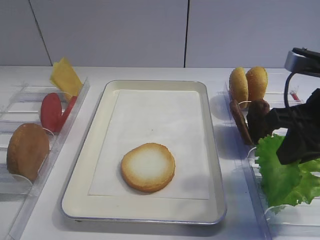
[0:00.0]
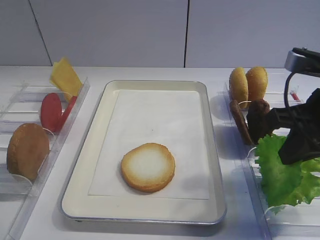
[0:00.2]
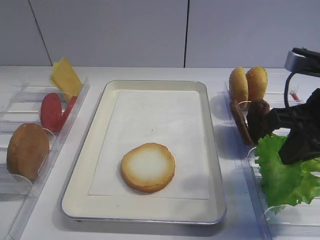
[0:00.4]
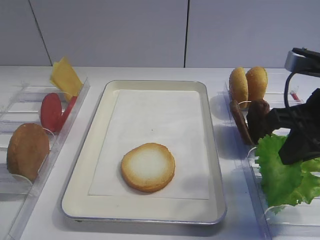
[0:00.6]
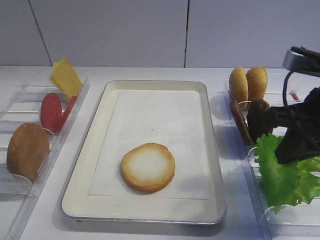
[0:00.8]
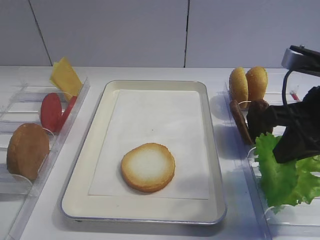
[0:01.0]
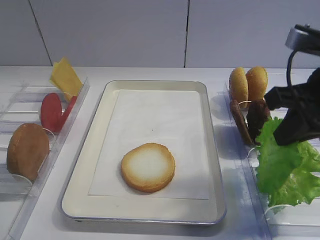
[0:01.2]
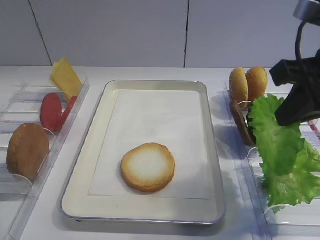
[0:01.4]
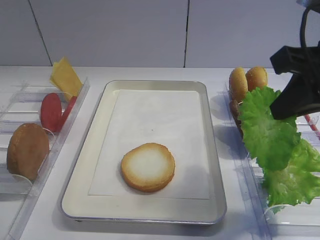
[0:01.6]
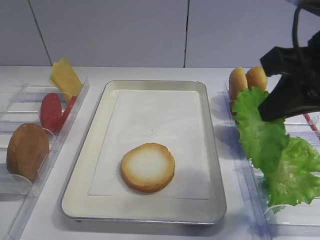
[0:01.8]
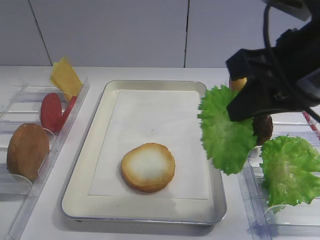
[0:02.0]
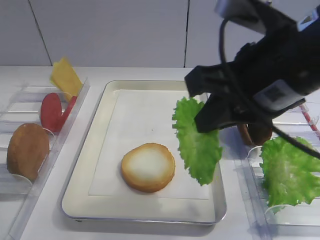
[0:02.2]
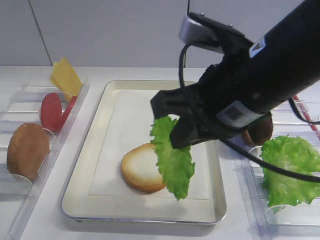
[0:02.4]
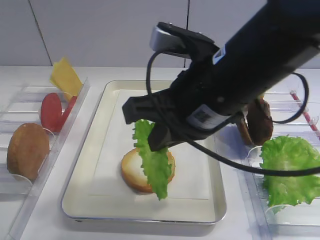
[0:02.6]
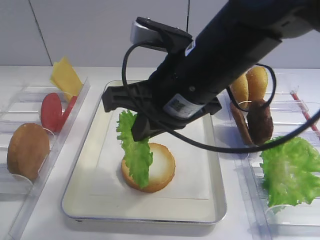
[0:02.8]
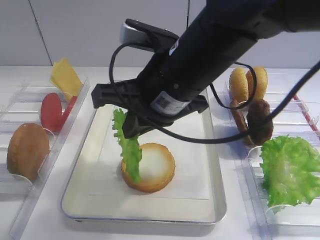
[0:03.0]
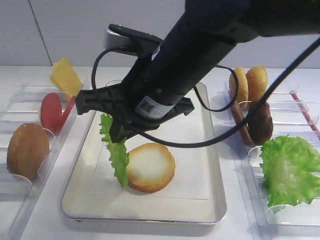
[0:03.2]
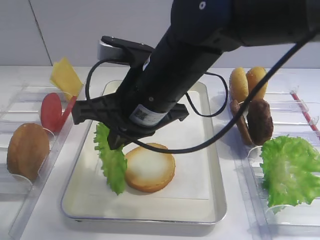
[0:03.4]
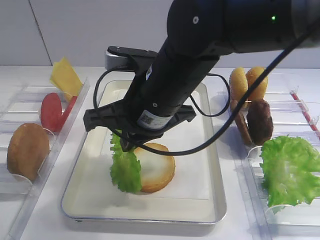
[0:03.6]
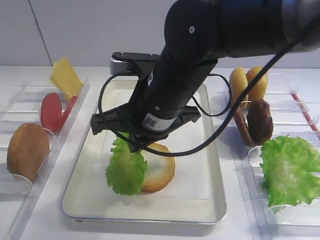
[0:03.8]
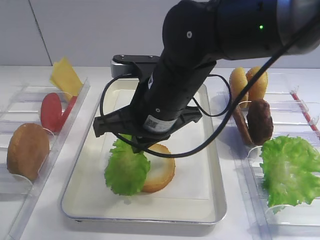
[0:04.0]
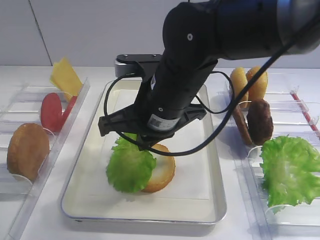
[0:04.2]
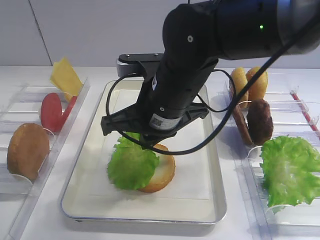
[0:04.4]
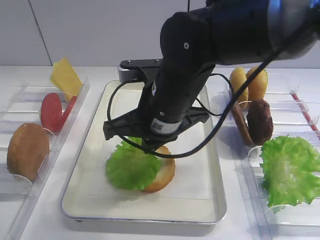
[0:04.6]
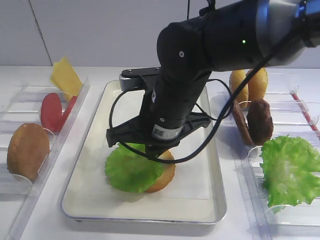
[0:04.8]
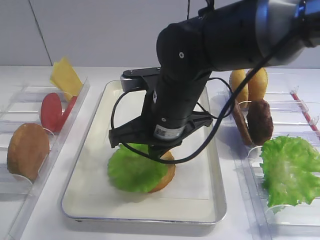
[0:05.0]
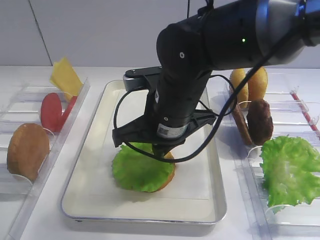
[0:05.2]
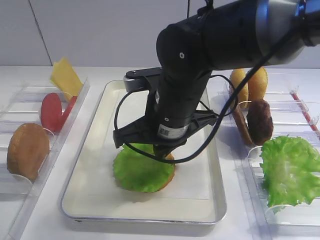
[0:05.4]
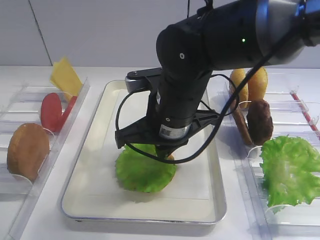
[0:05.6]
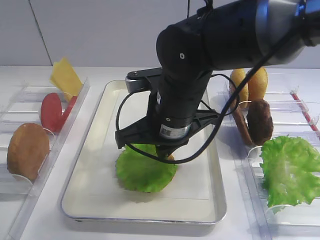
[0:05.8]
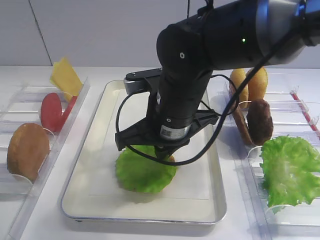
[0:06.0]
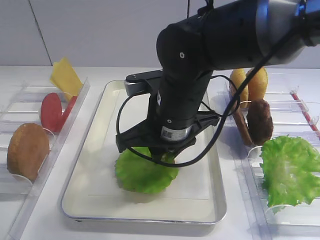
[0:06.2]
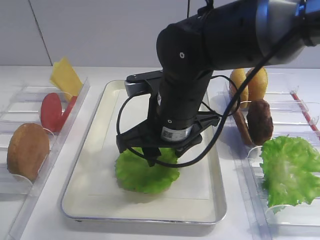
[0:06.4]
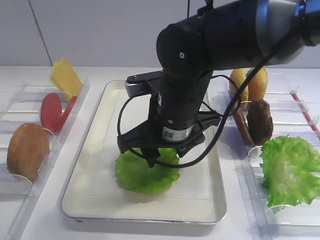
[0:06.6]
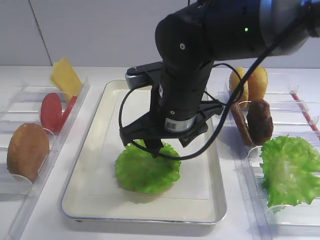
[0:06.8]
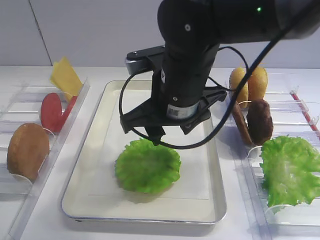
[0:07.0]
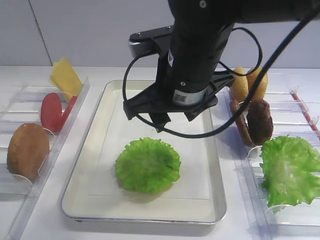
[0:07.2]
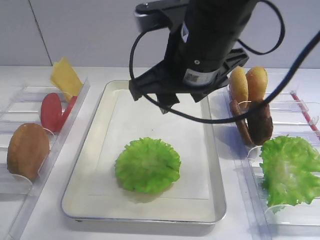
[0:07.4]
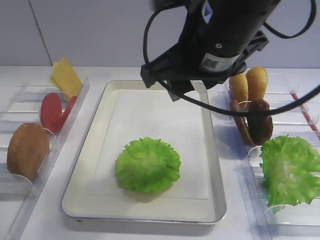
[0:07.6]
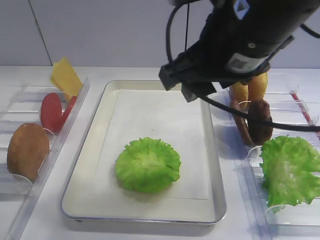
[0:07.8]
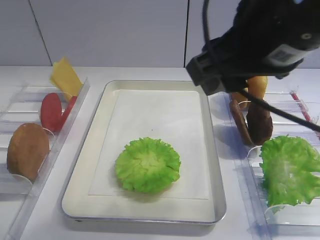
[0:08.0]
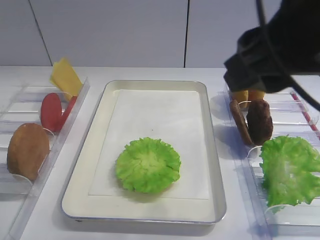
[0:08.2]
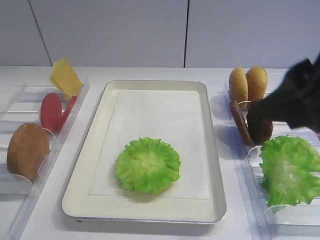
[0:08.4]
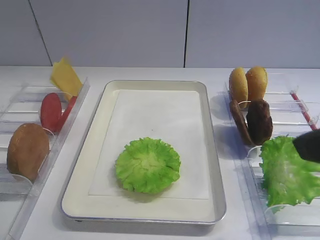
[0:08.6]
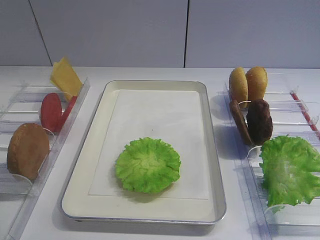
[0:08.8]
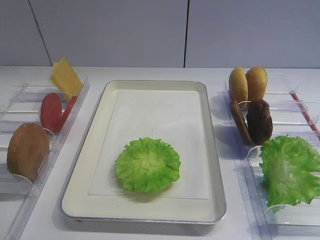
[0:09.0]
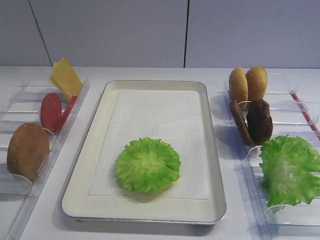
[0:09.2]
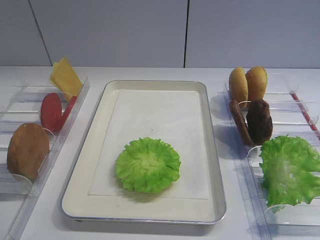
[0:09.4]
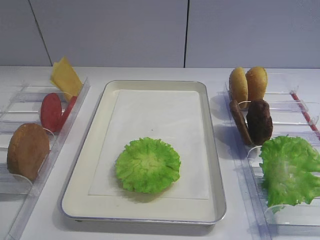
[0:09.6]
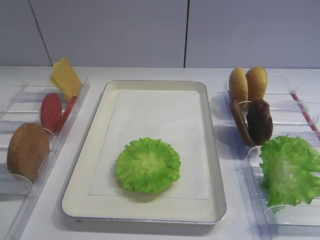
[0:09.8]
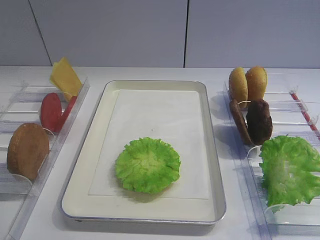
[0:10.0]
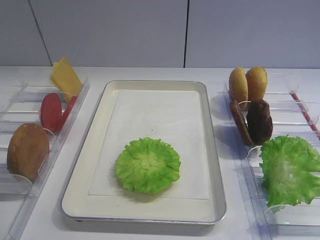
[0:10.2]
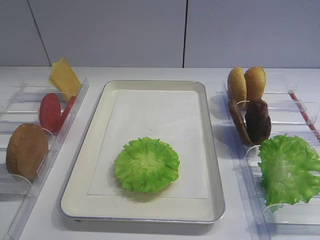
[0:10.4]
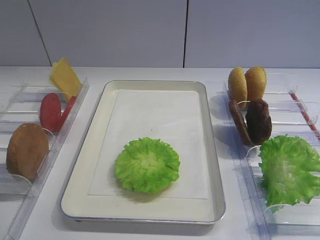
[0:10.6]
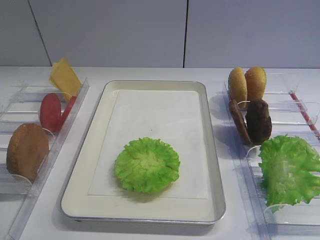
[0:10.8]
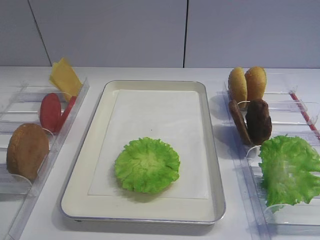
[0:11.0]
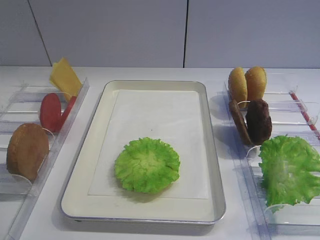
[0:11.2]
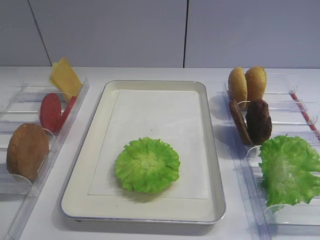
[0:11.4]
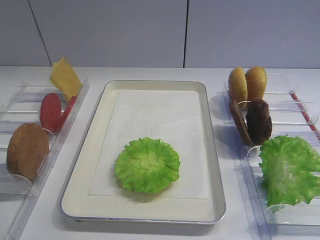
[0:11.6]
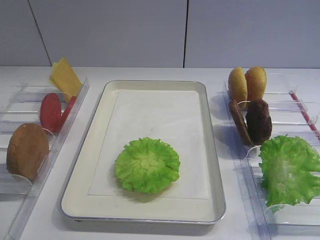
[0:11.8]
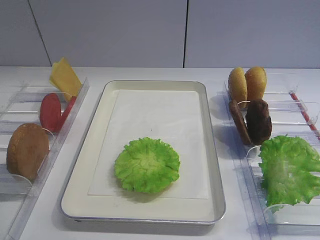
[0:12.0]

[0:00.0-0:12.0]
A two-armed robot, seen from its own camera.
Step, 1.6 to 7.0 s: Place the lettuce leaf on the bread slice with the right gripper.
0.0 to 1.6 s: The right gripper moves upward, approximately 5 cm.
1.6 to 3.0 s: The right gripper heads to the left, covering some 20 cm.
3.0 to 4.4 s: The right gripper changes place by about 5 cm.
4.4 to 6.0 s: The grippers move only a little.
6.0 to 7.6 s: The right gripper moves upward, approximately 10 cm, and opens its fingers.
7.6 to 9.0 s: The right gripper moves backward and to the right, some 25 cm.
9.0 to 10.4 s: The right gripper goes some 5 cm backward.

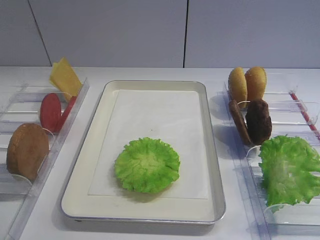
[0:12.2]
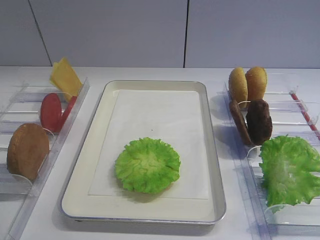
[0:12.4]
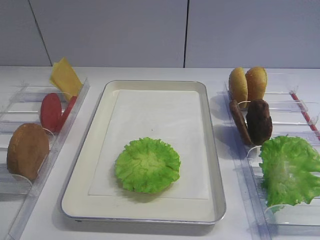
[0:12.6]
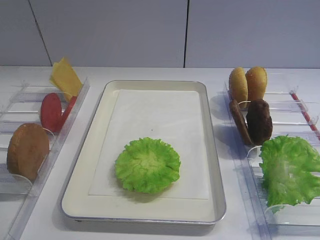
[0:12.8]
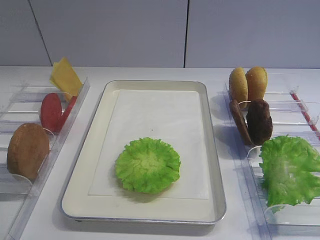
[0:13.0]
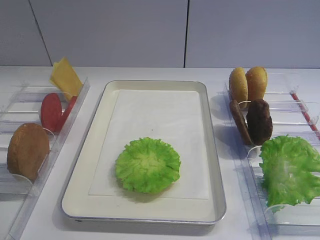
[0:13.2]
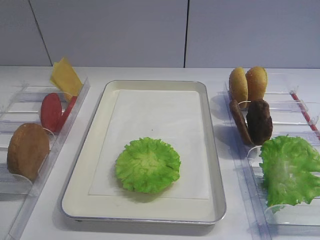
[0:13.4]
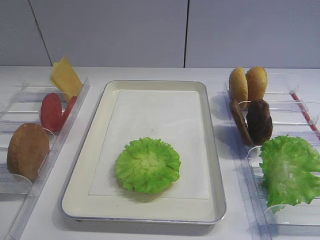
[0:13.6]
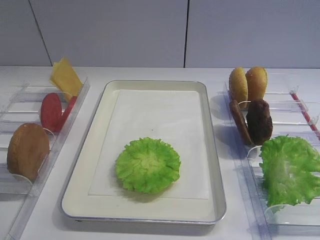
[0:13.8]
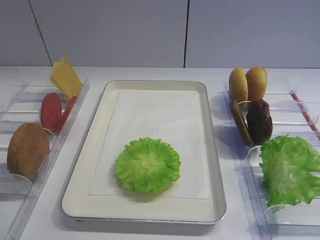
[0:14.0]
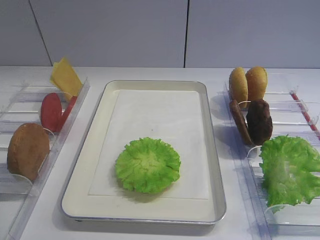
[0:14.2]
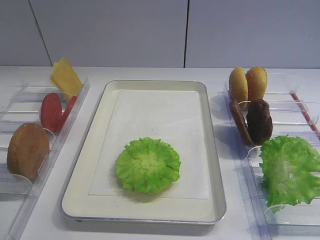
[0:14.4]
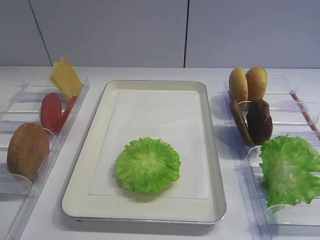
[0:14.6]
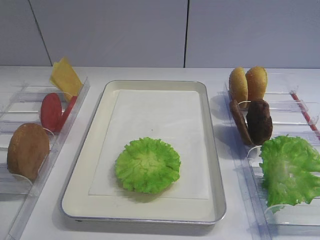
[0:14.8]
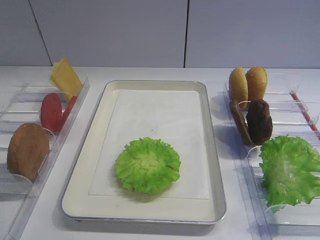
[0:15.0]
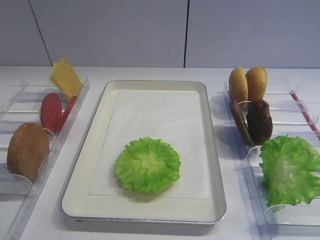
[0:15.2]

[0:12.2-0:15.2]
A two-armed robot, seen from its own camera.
13.8 to 15.2 s: The two grippers keep their place.

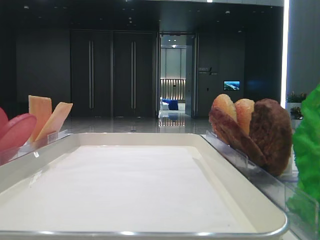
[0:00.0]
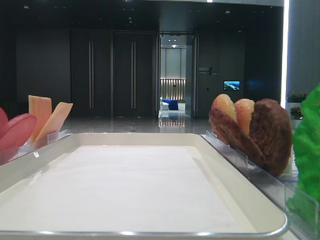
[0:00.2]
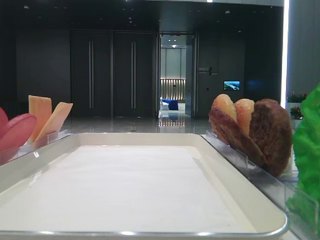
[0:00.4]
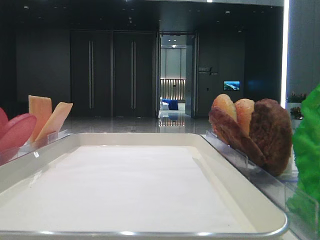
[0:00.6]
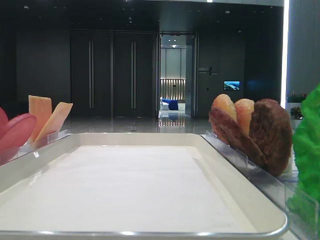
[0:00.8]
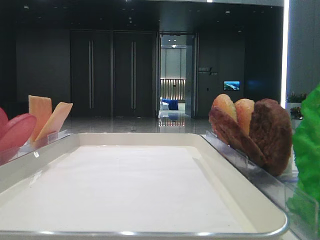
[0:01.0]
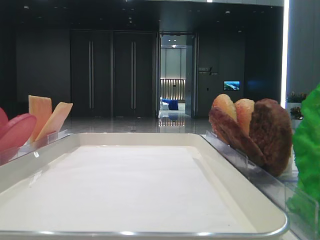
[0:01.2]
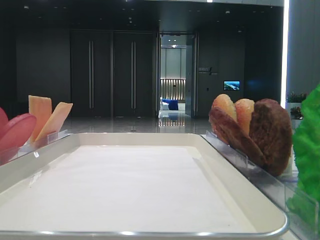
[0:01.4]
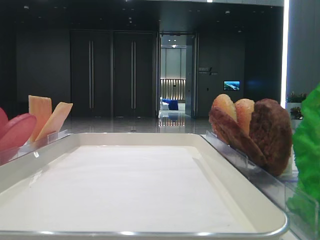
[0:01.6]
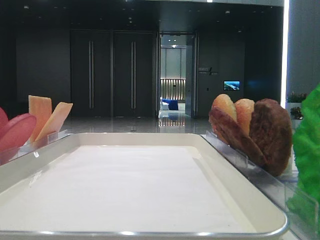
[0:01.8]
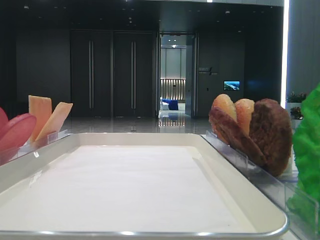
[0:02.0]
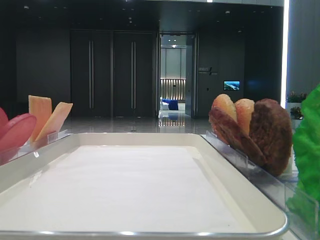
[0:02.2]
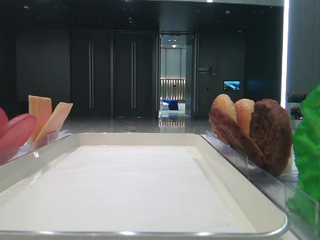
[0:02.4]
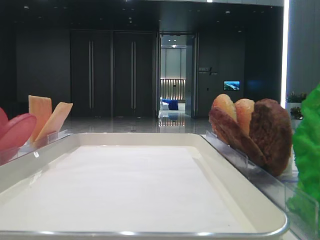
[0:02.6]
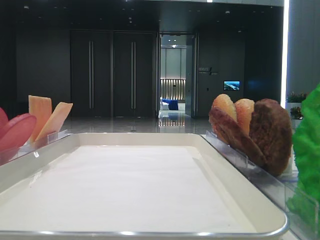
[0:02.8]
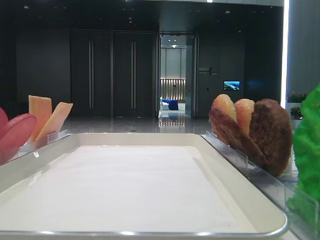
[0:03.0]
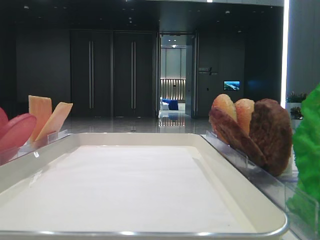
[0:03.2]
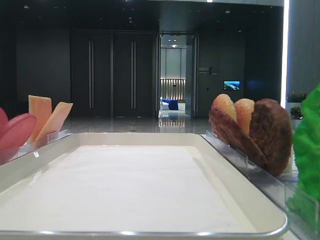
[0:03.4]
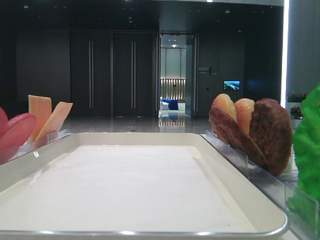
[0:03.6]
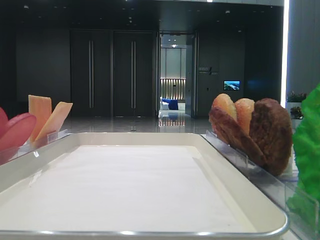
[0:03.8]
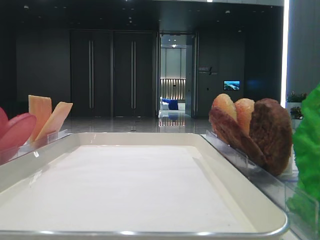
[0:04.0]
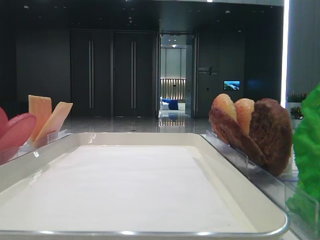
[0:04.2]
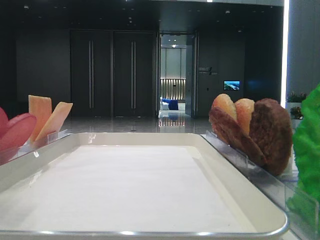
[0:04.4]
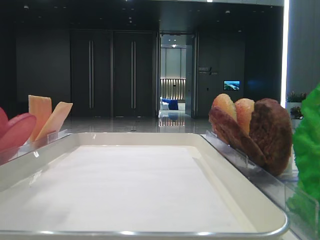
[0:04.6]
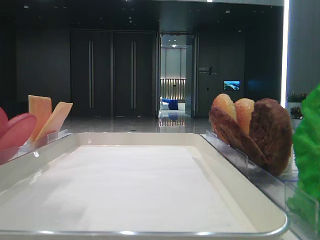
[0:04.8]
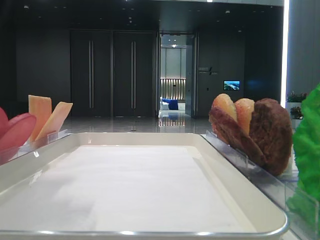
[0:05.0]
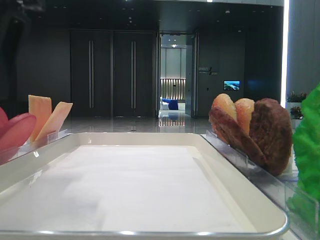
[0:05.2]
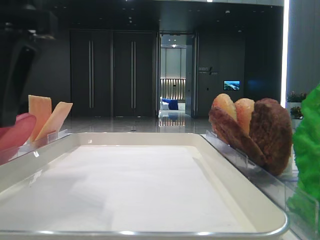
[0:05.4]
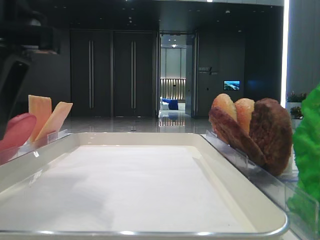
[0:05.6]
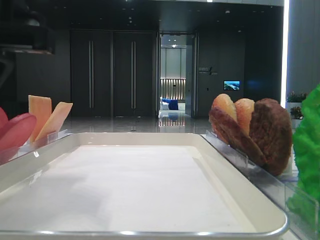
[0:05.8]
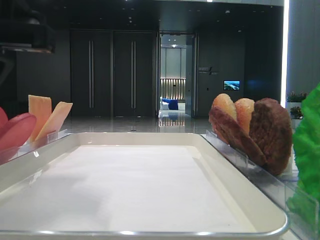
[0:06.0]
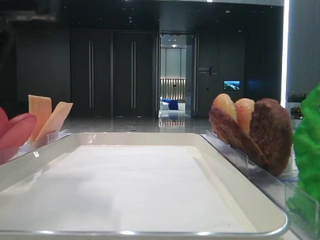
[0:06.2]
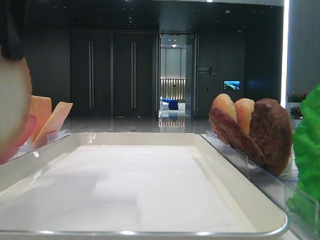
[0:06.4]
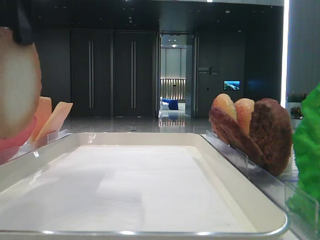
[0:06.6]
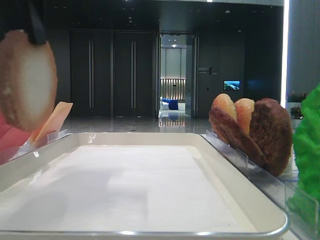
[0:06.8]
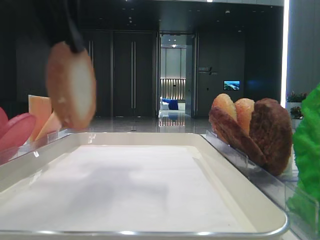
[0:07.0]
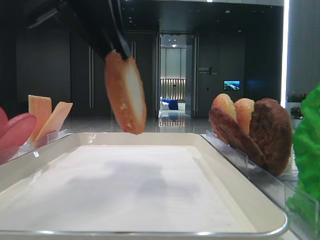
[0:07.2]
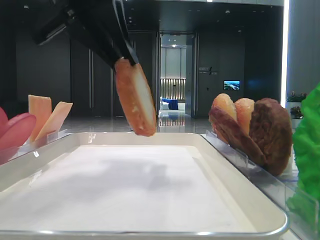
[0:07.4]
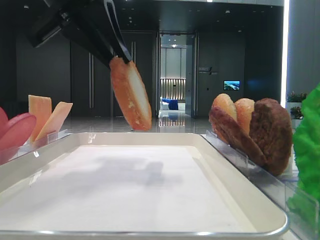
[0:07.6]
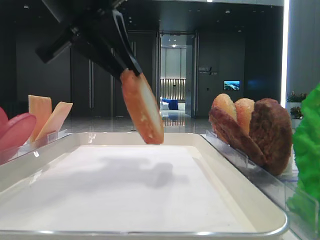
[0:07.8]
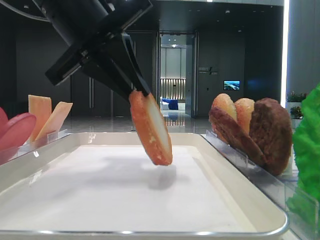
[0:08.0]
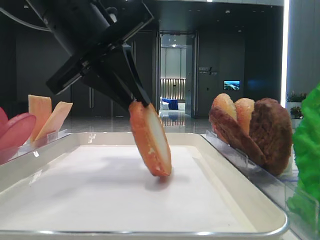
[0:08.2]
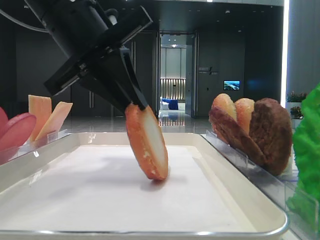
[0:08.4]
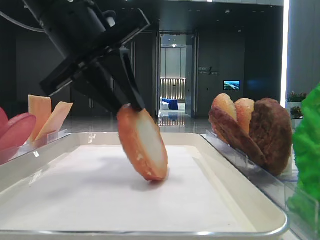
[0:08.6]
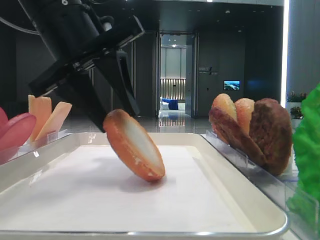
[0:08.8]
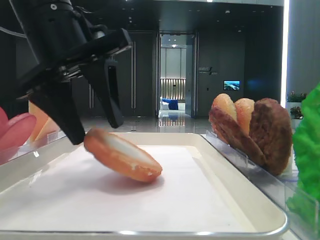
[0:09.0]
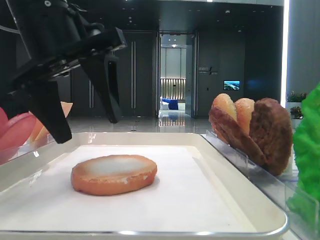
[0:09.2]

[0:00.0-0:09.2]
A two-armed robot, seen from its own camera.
Step, 0.0 to 5.2 s: Pick up the bottom bread with the left hand.
Step, 5.4 to 9.2 s: Place the bread on the tray with the left hand.
3.0 to 4.6 s: The left gripper travels forward and to the right by approximately 20 cm.
4.6 to 6.2 s: The left gripper travels downward and to the right by approximately 10 cm, and closes.
6.2 to 7.6 s: The left gripper moves forward, approximately 5 cm.
7.6 to 9.2 s: The left gripper moves downward, roughly 5 cm, and opens up.
